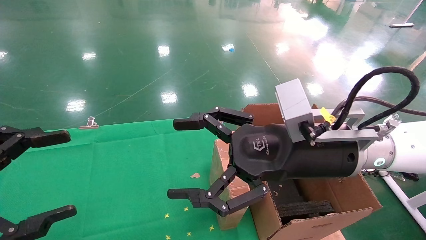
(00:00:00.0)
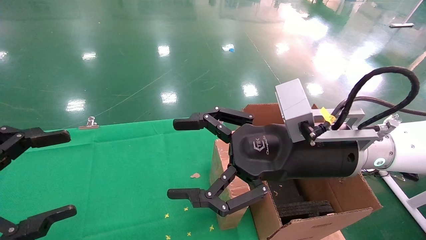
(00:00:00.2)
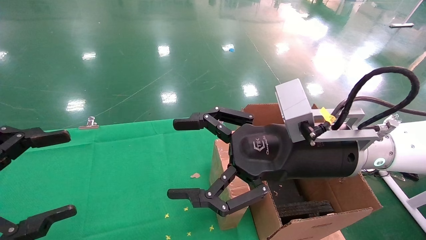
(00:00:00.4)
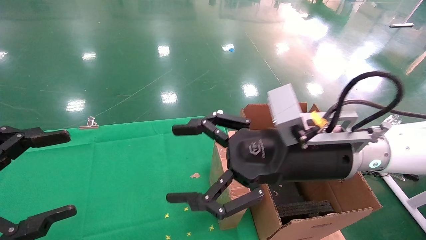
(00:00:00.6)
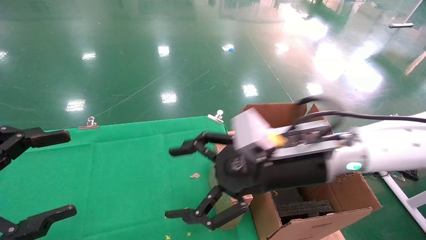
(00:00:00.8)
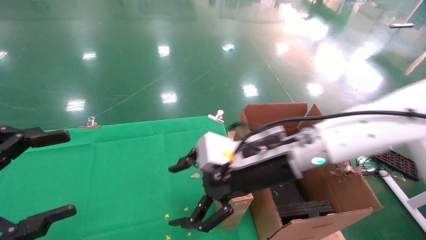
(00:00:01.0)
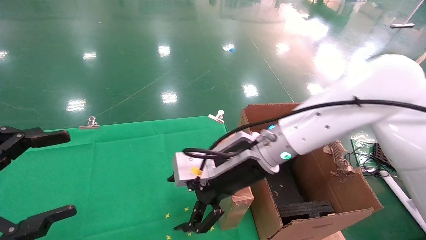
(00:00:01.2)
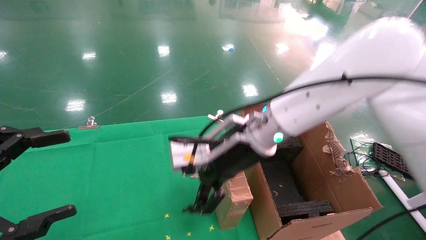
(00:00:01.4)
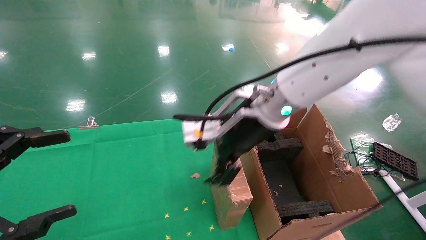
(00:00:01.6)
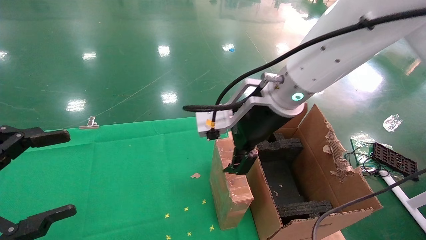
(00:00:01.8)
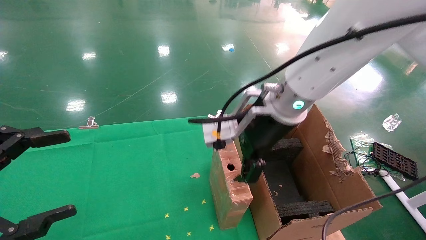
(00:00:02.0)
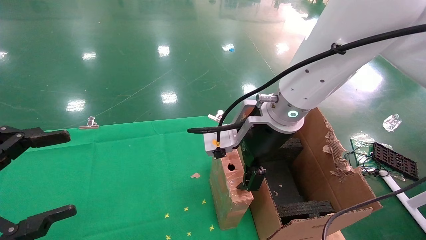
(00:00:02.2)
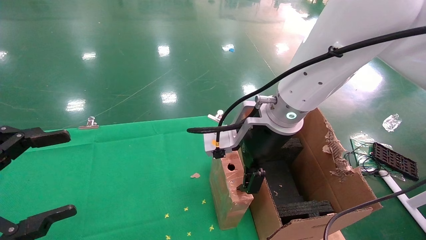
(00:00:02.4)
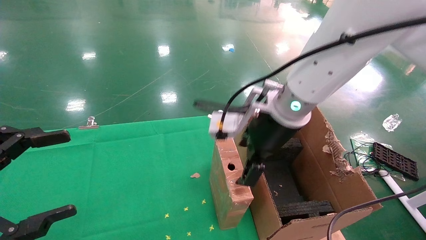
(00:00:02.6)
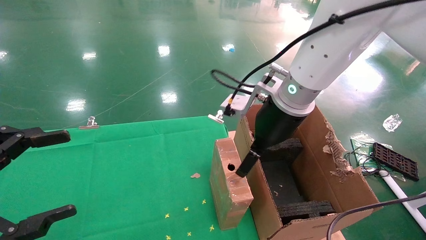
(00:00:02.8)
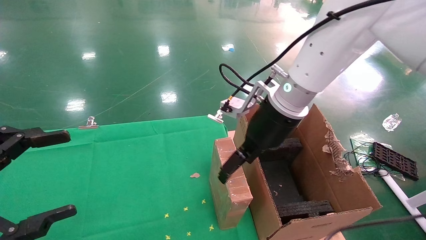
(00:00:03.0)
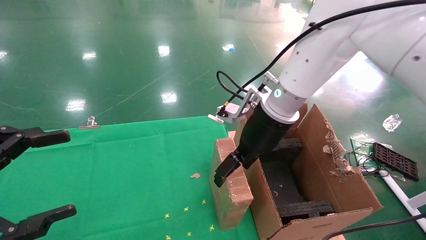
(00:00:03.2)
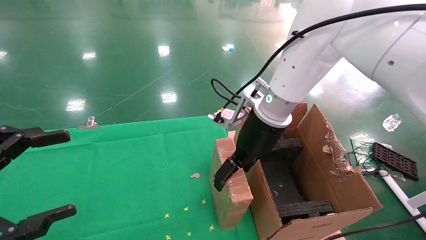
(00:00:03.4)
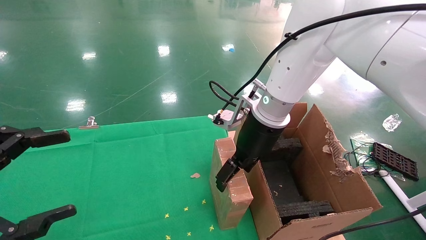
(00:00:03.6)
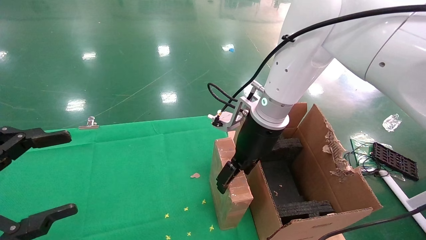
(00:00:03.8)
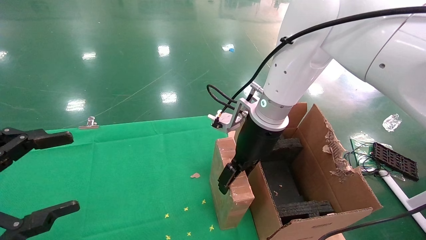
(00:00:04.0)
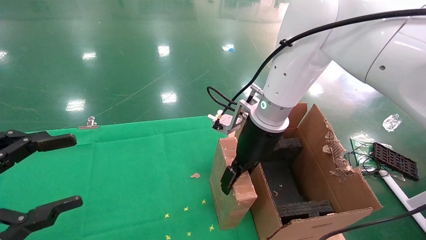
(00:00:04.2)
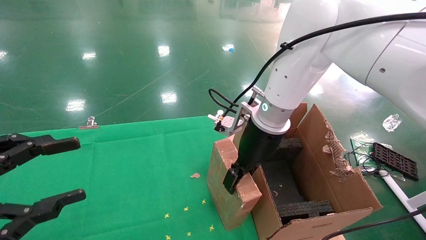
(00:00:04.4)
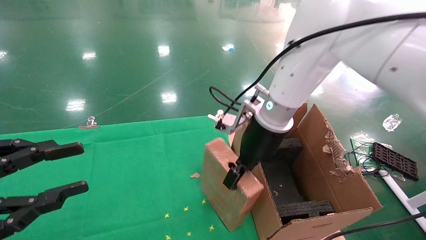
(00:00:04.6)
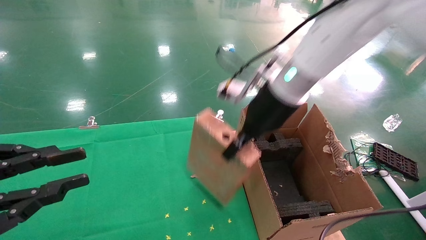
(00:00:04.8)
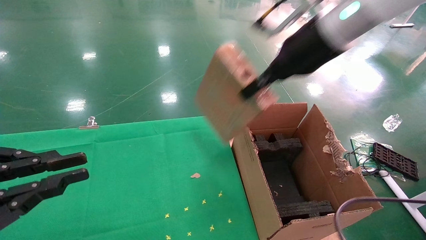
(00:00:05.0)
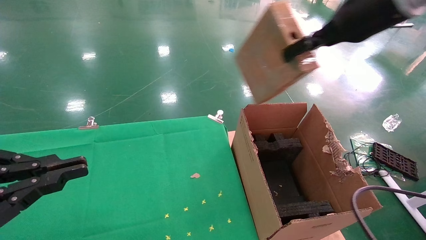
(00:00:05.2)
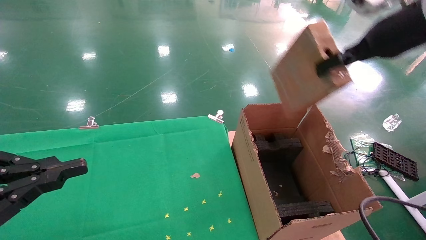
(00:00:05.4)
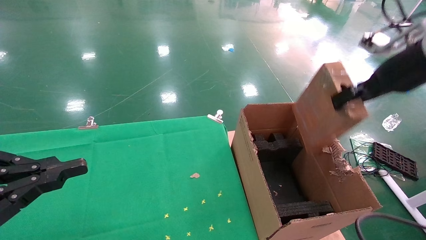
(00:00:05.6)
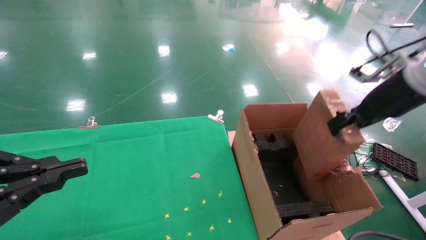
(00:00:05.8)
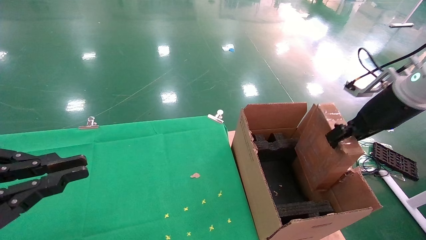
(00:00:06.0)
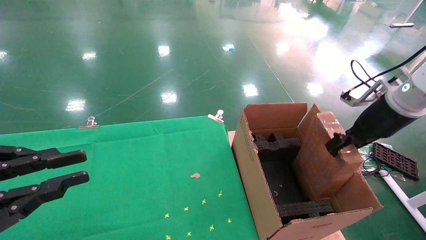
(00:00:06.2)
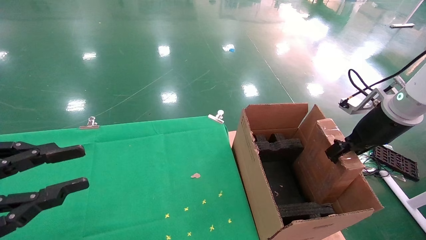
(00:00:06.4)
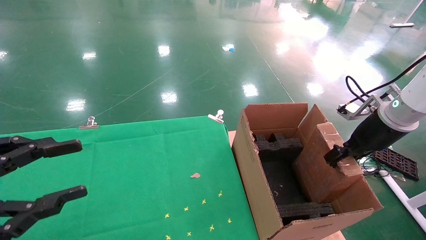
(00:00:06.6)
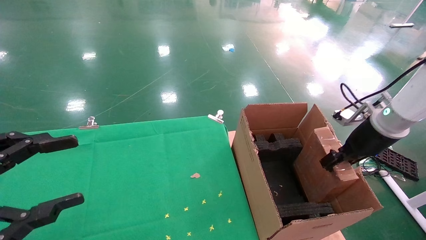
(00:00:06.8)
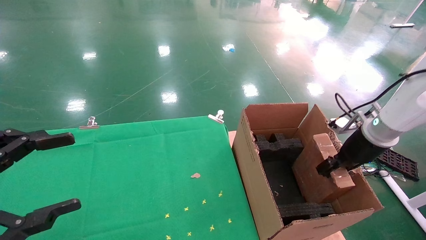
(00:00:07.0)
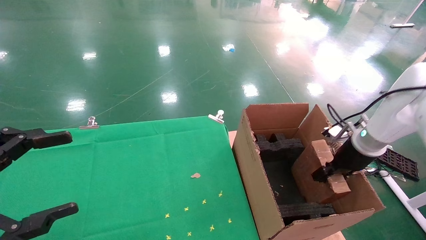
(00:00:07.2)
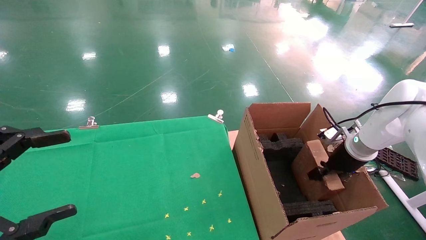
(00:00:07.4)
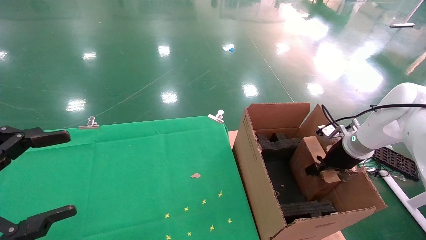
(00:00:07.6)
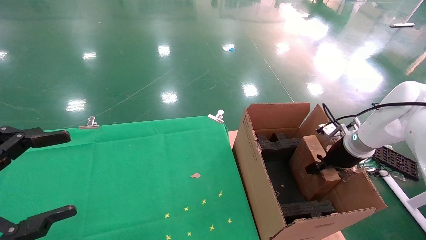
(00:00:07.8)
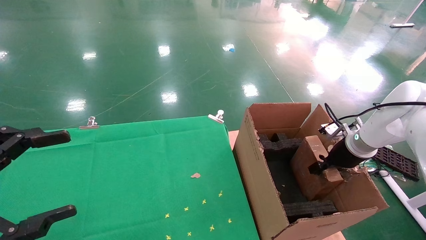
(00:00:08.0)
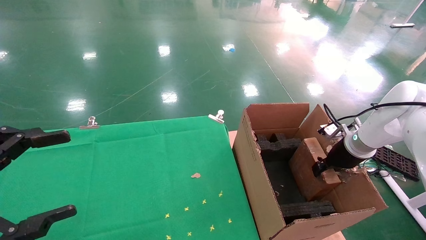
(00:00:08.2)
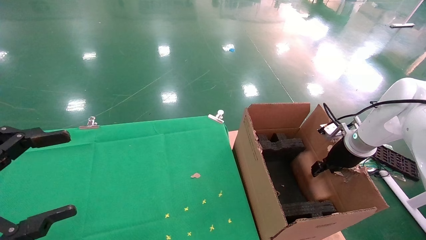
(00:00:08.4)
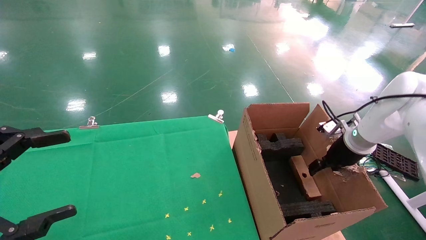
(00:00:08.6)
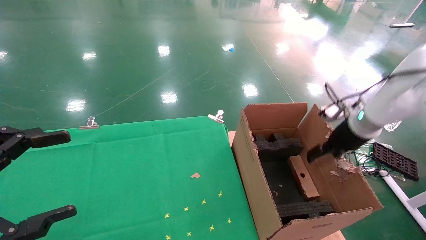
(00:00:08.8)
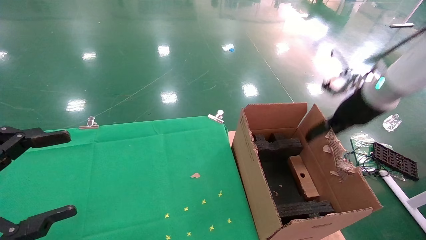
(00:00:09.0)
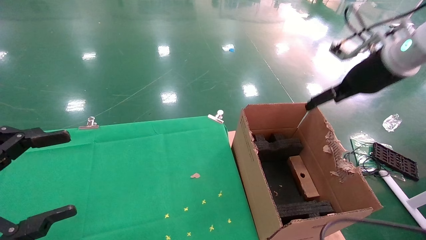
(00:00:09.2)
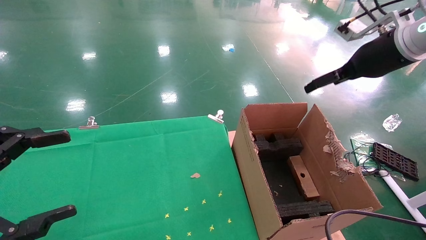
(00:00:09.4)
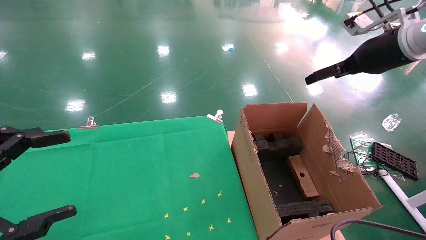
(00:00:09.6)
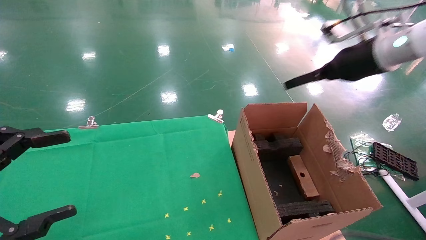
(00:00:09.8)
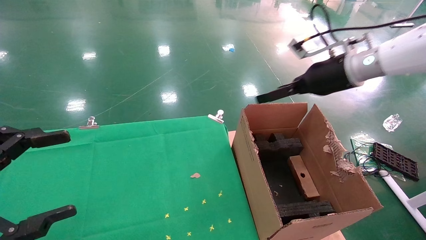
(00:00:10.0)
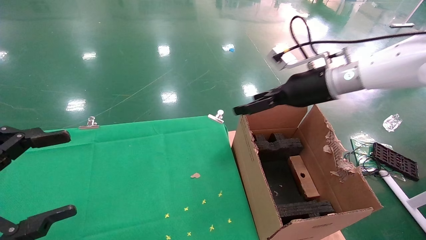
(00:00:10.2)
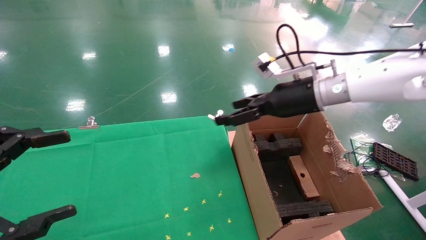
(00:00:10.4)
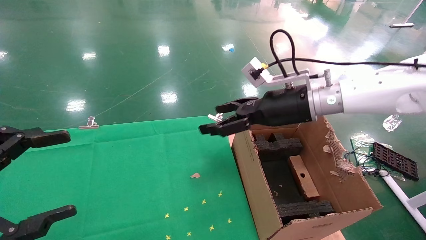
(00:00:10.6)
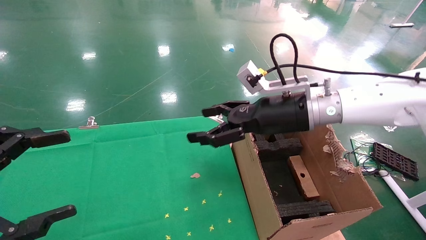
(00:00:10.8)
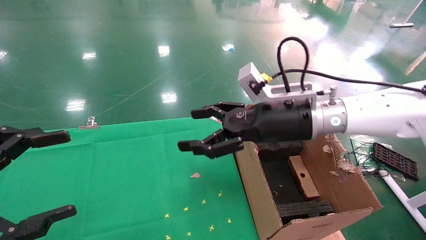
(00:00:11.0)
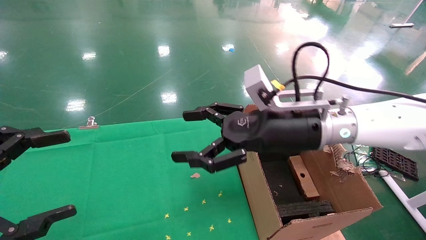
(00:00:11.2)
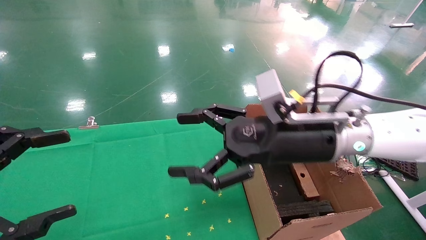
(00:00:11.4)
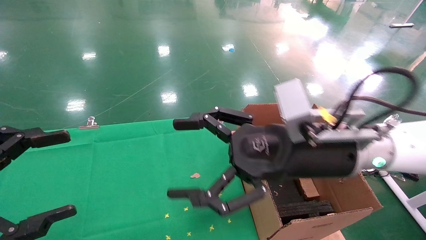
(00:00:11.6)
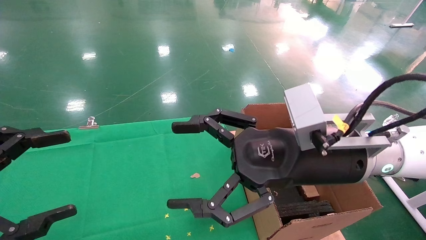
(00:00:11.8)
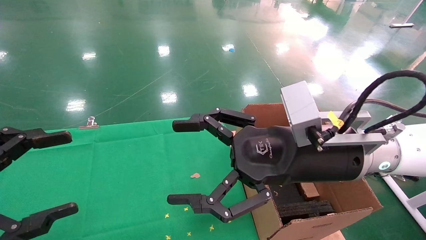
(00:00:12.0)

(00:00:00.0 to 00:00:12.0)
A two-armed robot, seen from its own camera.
Task of the whole recording: using a robotic arm to pick up a cardboard box and palace it the carton.
Step, 00:00:00.8 - 00:00:04.6: Pick up the mouse and the power cord paper box.
Step, 00:00:04.8 - 00:00:08.6: Place the mouse and the power cord paper box into the container.
00:00:00.0 - 00:00:01.6: The right gripper goes approximately 10 cm forward and to the left.
00:00:01.6 - 00:00:03.0: The right gripper changes place by some 5 cm.
00:00:03.0 - 00:00:04.4: The right gripper closes up.
00:00:04.4 - 00:00:06.0: The right gripper moves to the right, about 25 cm, and closes its fingers. Meanwhile the left gripper closes.
00:00:06.0 - 00:00:07.6: The left gripper opens its fingers. Meanwhile the right gripper travels downward and forward by roughly 20 cm.
00:00:07.6 - 00:00:09.0: The right gripper moves upward, about 15 cm, and opens up.
00:00:09.0 - 00:00:10.4: The right gripper is displaced to the left by roughly 15 cm.
00:00:10.4 - 00:00:12.0: The right gripper moves backward and to the left, approximately 15 cm.

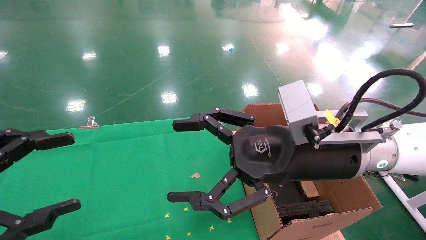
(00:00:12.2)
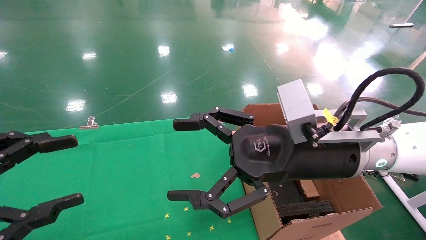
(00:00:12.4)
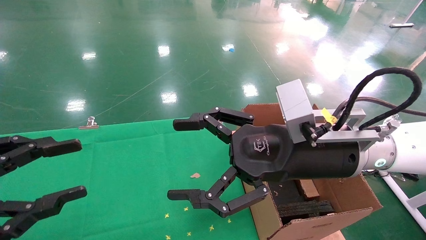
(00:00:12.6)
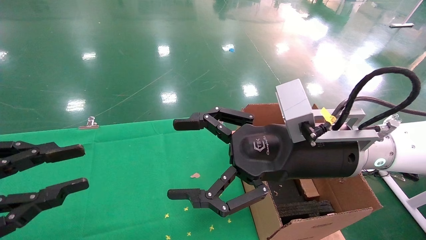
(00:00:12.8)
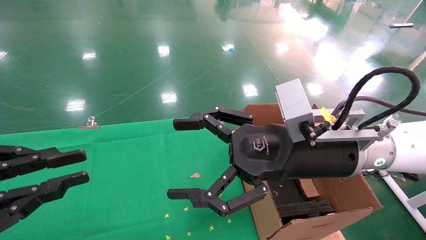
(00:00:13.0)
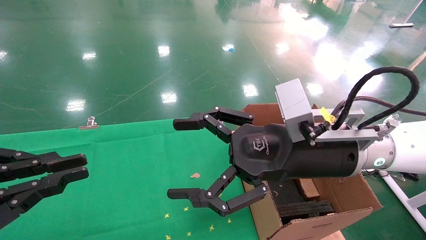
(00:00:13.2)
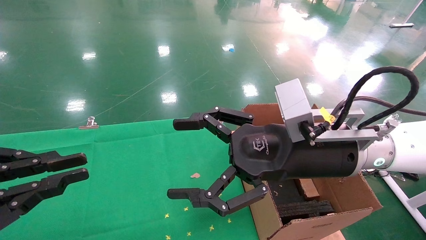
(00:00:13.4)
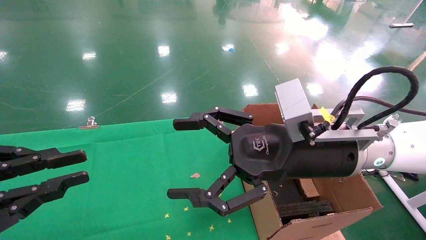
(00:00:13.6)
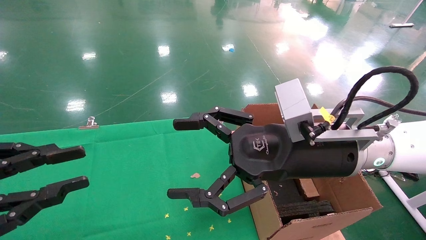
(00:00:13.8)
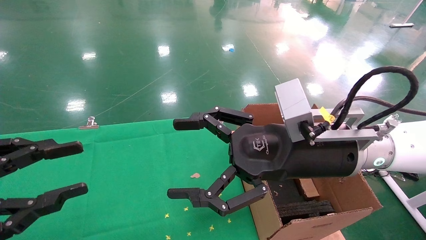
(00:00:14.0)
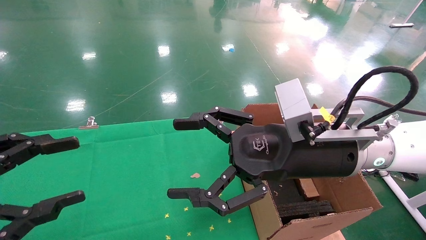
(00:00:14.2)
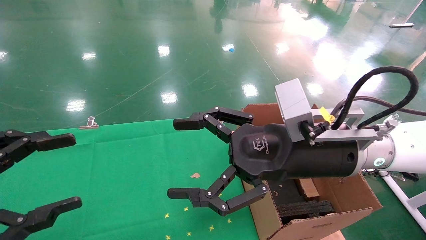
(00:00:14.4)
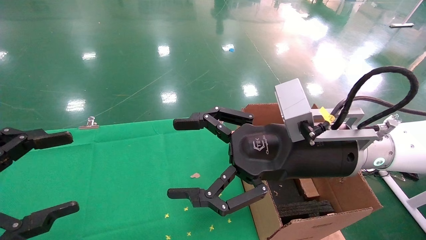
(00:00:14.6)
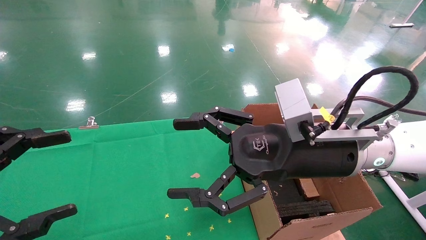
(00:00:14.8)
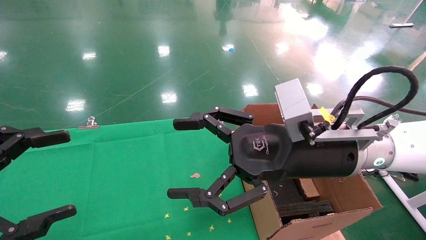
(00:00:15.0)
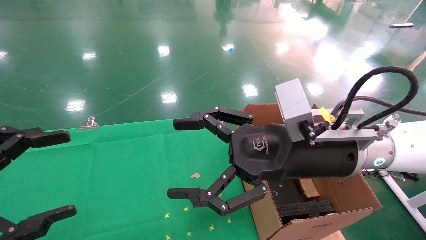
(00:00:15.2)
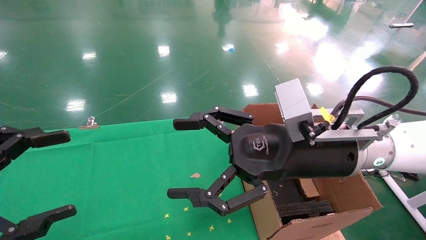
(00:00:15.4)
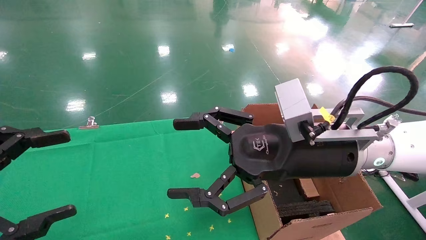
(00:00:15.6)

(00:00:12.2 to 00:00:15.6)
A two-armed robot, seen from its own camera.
Task of the whole recording: using a robotic arm to pick up a cardboard box and palace it the carton.
00:00:12.2 - 00:00:13.8: The left gripper closes up.
00:00:13.8 - 00:00:15.6: The left gripper opens up.
